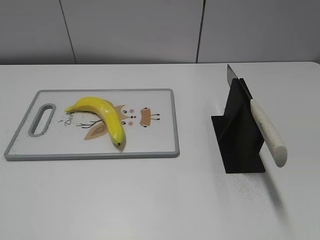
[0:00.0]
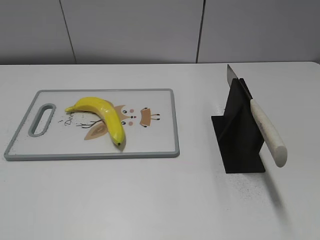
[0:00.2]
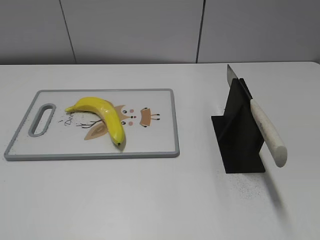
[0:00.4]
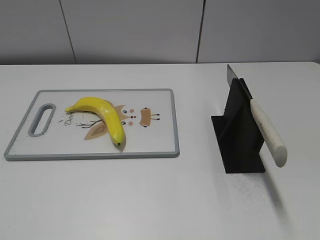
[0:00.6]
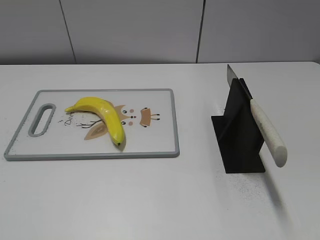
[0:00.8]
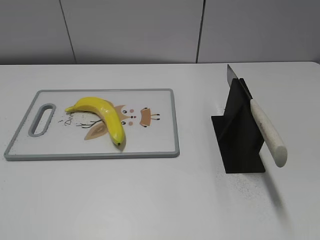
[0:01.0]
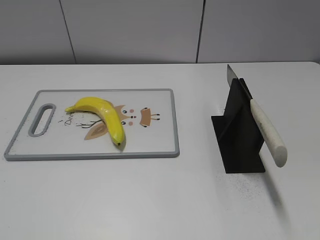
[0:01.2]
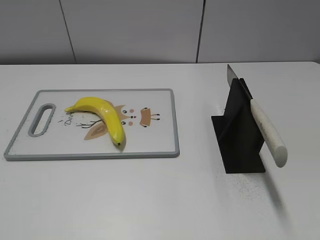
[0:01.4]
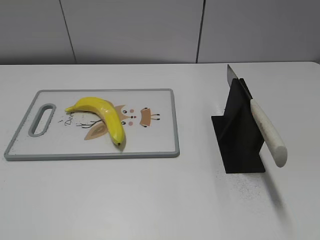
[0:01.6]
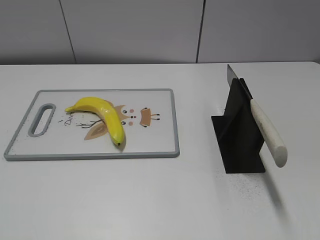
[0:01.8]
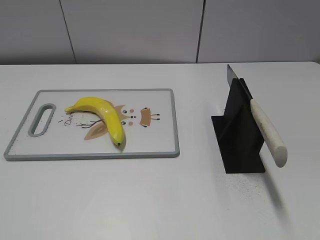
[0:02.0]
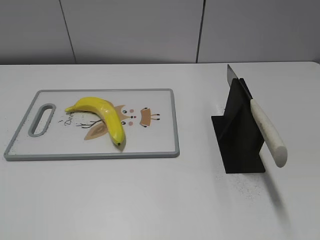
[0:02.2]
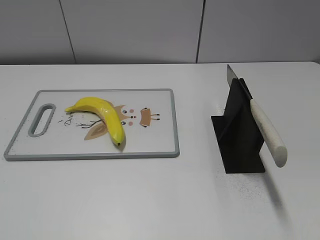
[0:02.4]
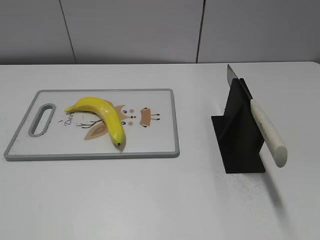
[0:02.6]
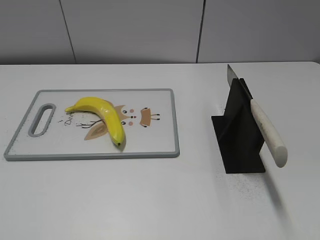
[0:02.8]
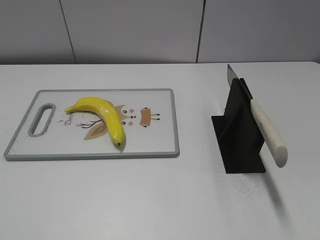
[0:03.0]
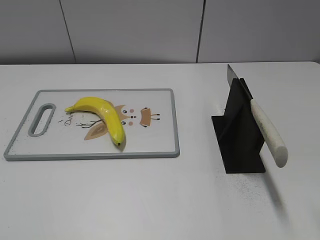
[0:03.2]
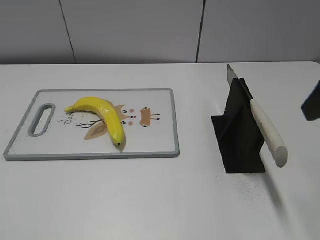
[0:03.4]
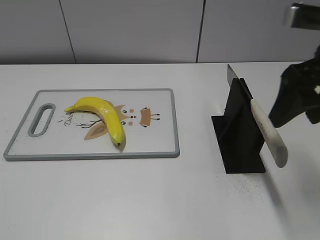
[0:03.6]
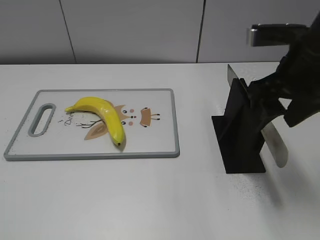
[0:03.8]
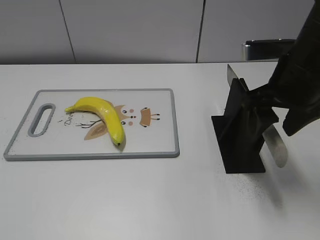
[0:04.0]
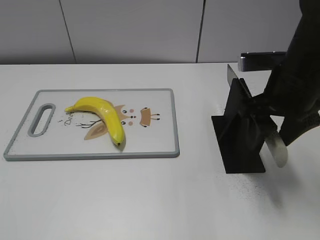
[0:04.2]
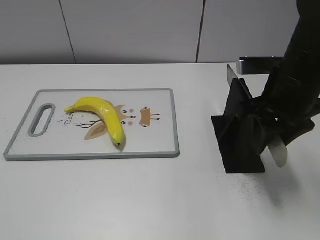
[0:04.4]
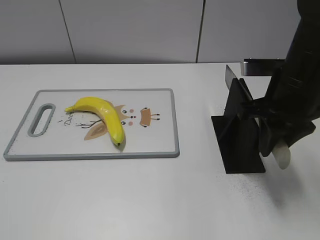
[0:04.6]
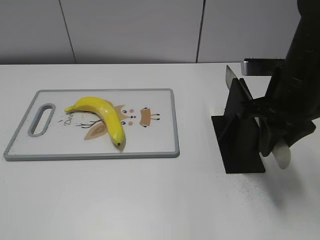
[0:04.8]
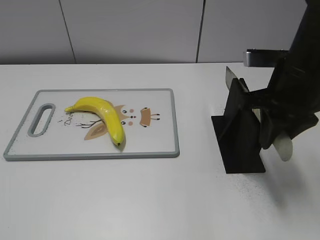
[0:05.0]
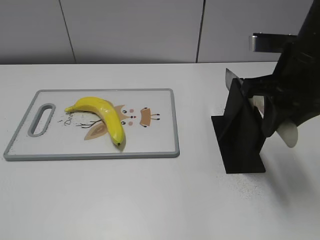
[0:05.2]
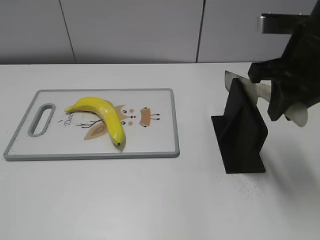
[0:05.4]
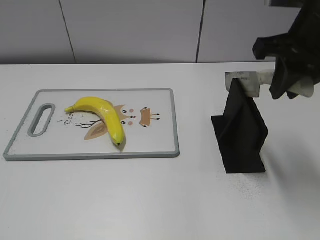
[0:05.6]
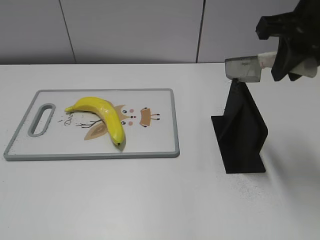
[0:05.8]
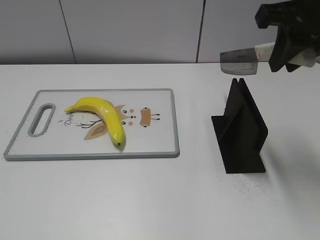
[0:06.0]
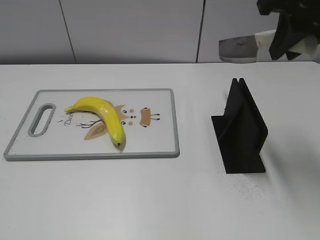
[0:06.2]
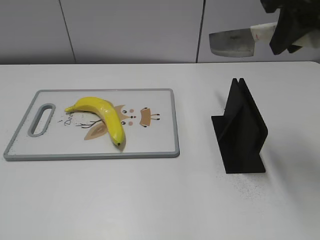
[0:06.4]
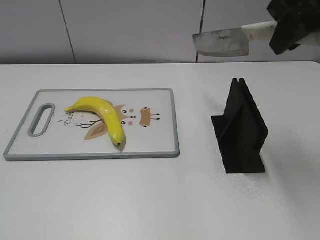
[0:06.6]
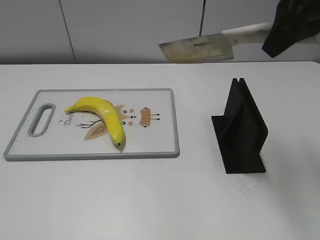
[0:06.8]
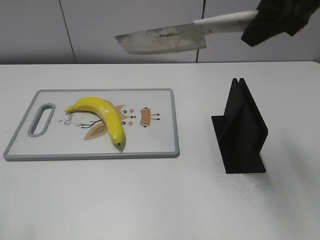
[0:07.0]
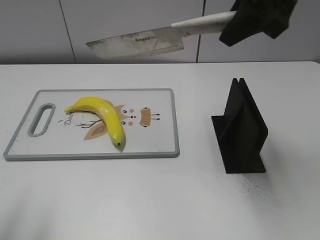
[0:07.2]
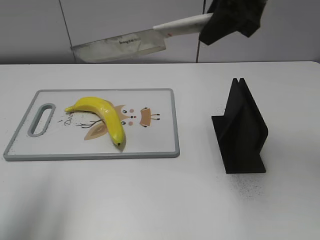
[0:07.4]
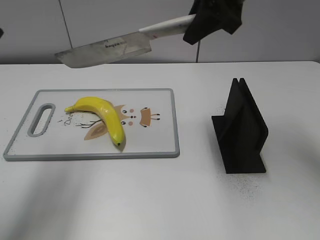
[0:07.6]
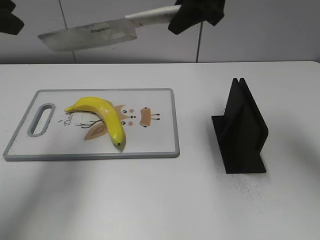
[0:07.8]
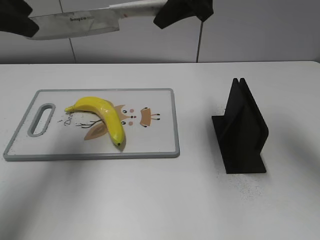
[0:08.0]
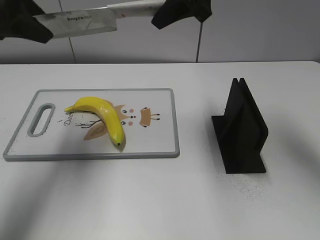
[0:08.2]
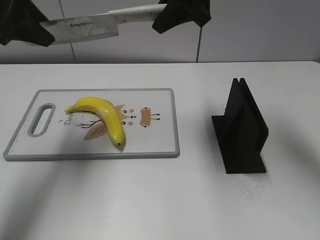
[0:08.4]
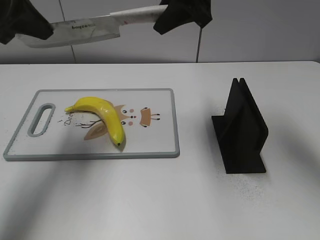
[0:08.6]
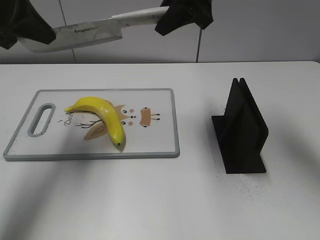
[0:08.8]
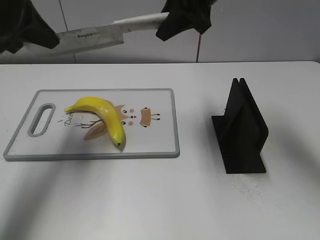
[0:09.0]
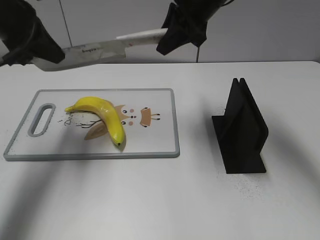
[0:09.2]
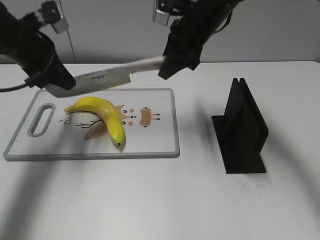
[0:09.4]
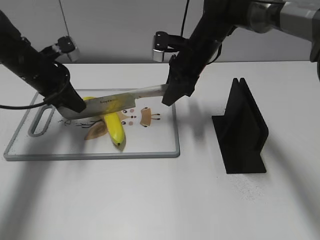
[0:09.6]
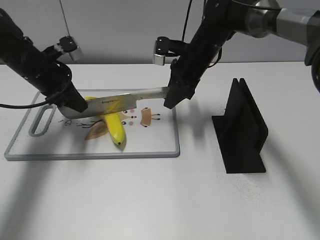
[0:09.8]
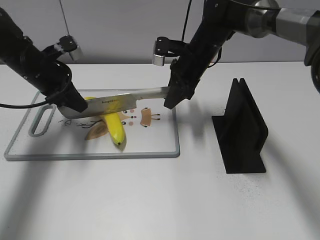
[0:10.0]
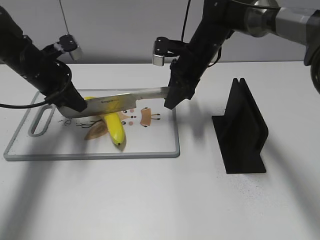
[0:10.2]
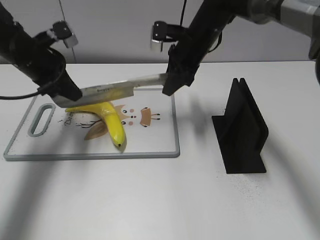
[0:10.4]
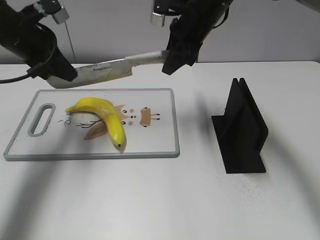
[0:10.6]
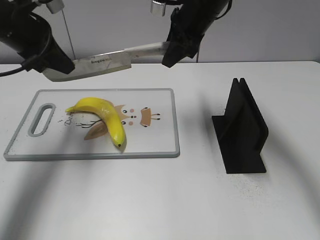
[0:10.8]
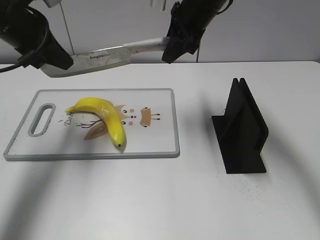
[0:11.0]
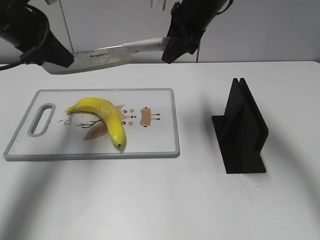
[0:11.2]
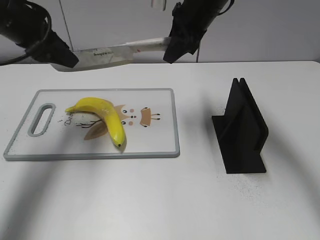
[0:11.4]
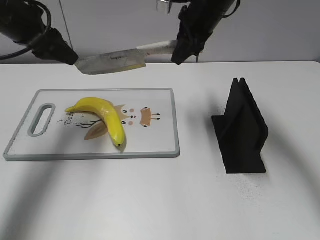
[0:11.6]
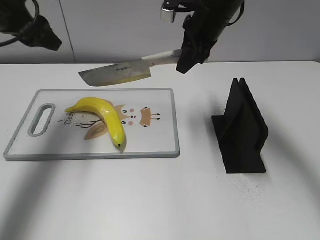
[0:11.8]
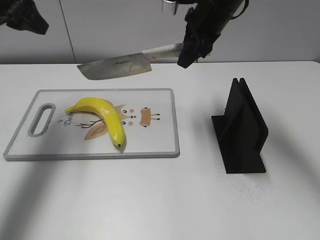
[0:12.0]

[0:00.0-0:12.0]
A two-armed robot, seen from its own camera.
Task of the whole recording: cut plastic banana.
Step, 0:00.0 to 0:05.8: Grab the knife handle with your right hand.
Step, 0:06.2 to 0:11.0: Lift the knife with your right hand.
0:03.0 to 0:04.4: The right gripper travels forward, downward and to the left by about 25 cm, and closes.
0:04.4 to 0:06.0: The right gripper is displaced upward by about 10 cm, and closes.
0:06.0 to 0:07.6: The right gripper shifts roughly 10 cm forward and to the left; the left gripper travels forward and upward by roughly 25 cm.
0:07.6 to 0:09.0: The right gripper shifts by some 5 cm. The left gripper moves forward and downward, about 15 cm, and closes.
0:09.0 to 0:10.4: The grippers both shift downward by roughly 15 cm.
0:10.4 to 0:12.0: The left gripper is displaced upward by about 15 cm, and opens its fingers; the right gripper travels upward by roughly 10 cm.

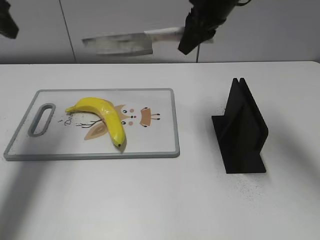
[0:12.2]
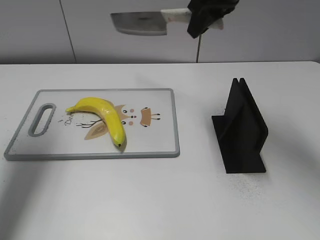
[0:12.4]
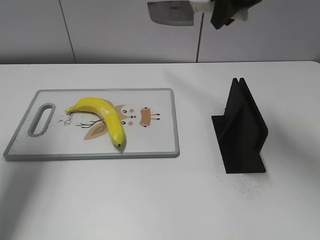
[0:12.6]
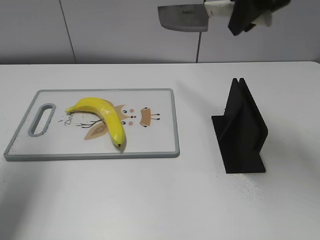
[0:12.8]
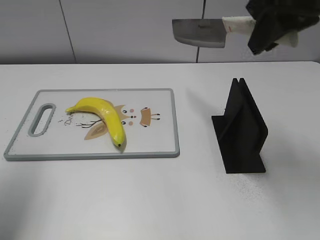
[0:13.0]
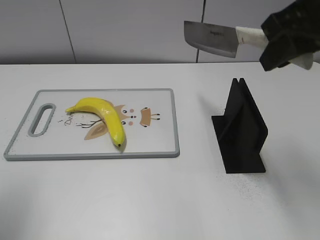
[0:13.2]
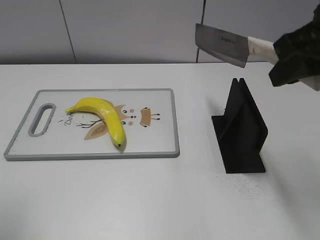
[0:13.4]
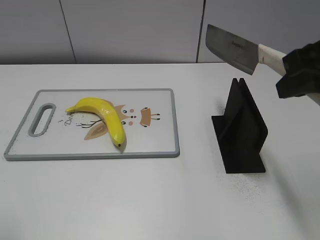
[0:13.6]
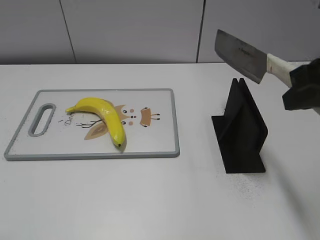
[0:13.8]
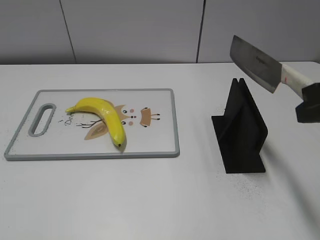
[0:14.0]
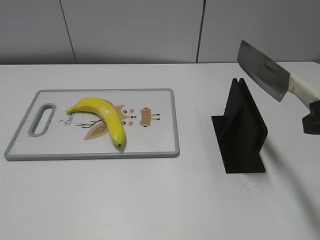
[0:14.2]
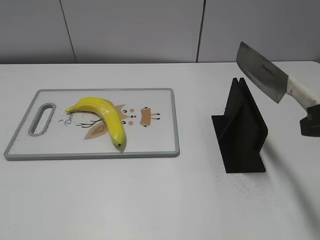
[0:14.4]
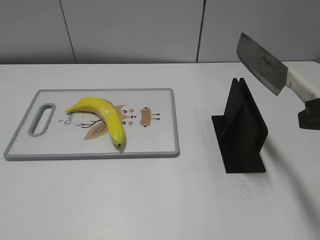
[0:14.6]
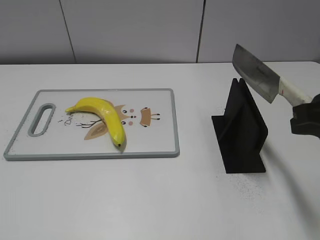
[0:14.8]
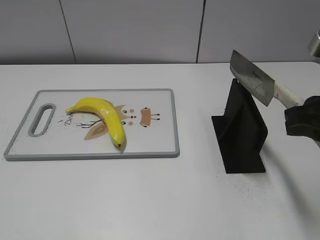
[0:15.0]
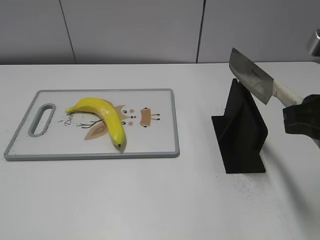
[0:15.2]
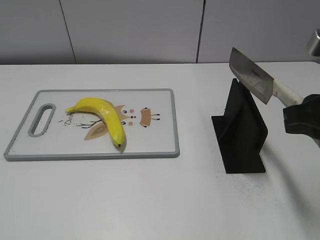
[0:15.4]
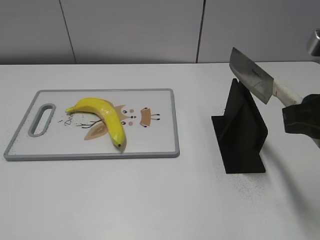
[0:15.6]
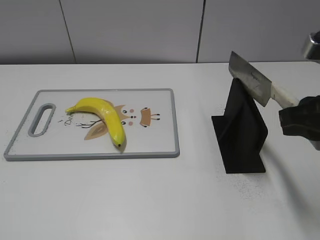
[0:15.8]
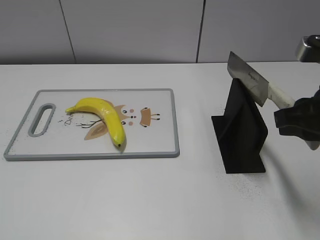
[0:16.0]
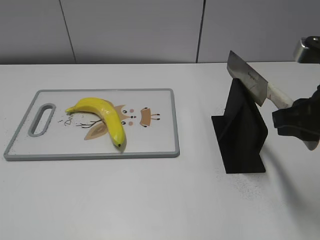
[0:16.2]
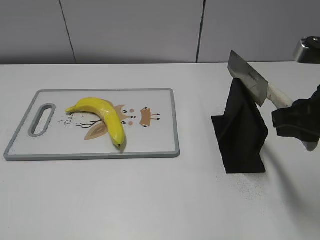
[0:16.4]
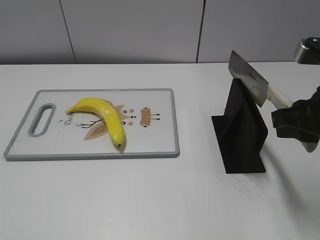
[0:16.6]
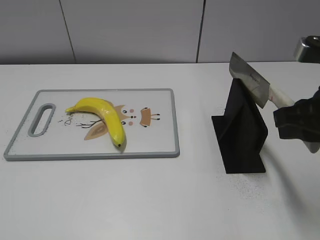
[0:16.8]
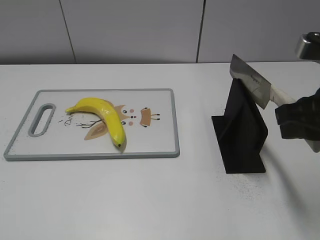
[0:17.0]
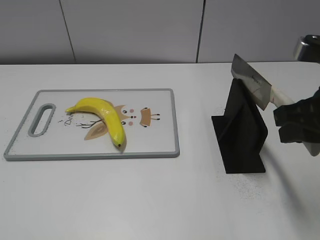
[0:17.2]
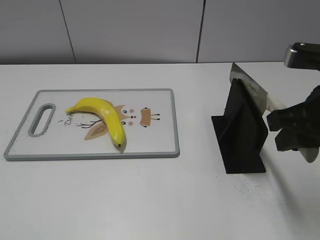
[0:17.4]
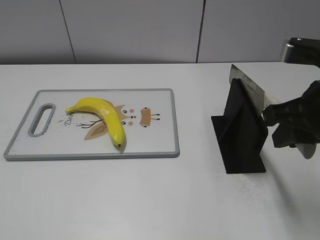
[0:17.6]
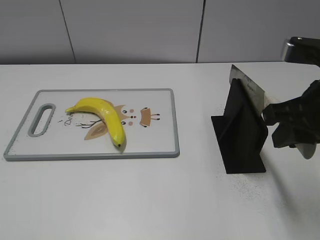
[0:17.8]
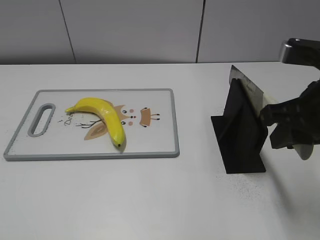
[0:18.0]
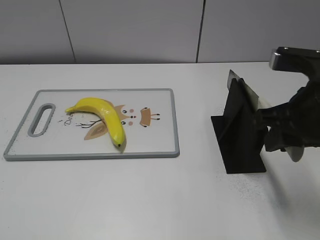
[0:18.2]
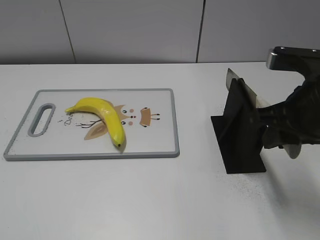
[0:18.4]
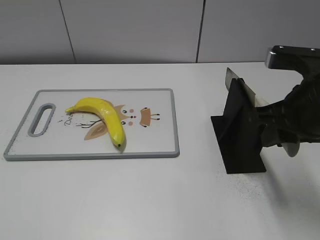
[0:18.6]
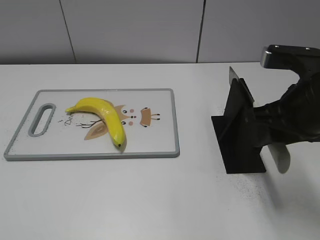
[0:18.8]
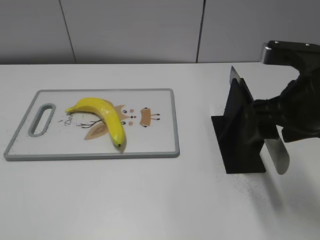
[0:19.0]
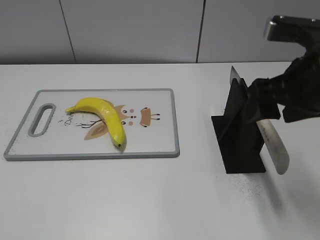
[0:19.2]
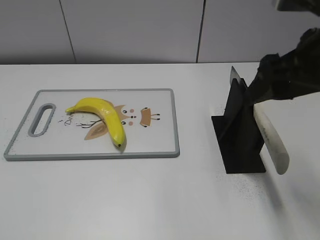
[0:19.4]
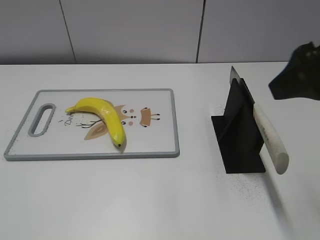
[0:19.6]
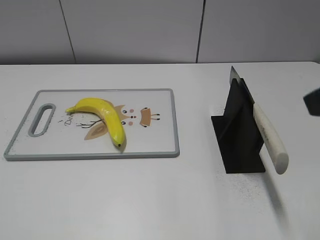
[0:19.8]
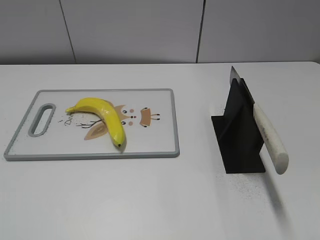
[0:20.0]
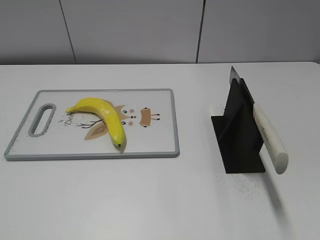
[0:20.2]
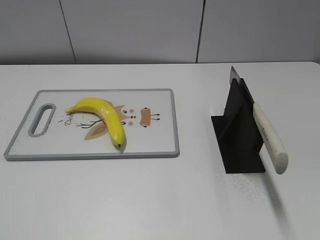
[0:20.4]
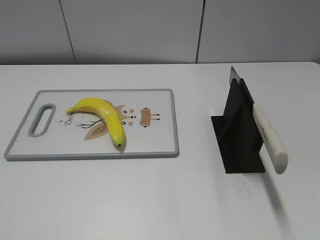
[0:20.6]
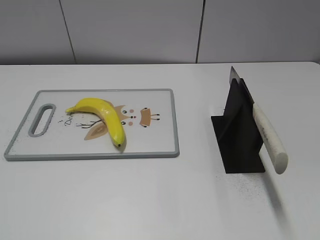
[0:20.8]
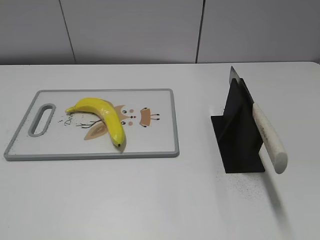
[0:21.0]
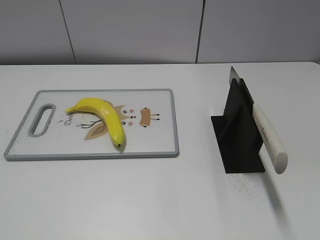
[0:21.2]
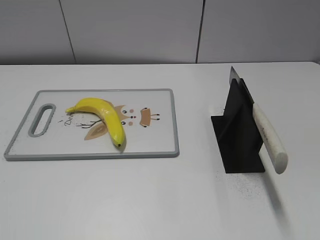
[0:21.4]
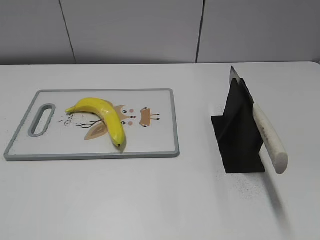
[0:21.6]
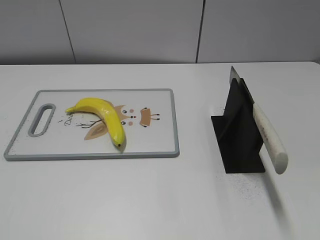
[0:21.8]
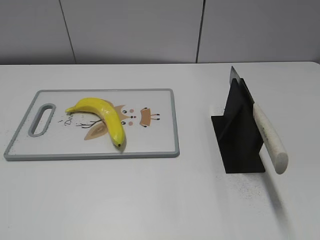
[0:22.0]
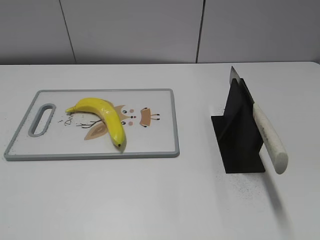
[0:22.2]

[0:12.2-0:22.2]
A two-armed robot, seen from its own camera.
Task of the whole recording: cut plastic banana.
Step, 0:12.8 to 0:14.0: Lift the knife with your right hand.
Step, 0:14.2 to 0:22.2: Place the knife on the storage rack with your right hand.
0:12.2 to 0:13.6: The left gripper moves backward, roughly 25 cm. Meanwhile the right gripper shifts roughly 25 cm backward and to the right.
0:13.6 to 0:15.0: The right gripper moves downward, about 5 cm.
0:15.0 to 0:18.0: The grippers stay close to where they were, moving slightly.
0:18.0 to 0:19.4: The right gripper opens up.
0:19.4 to 0:20.8: The right gripper travels backward and to the right by approximately 25 cm.
